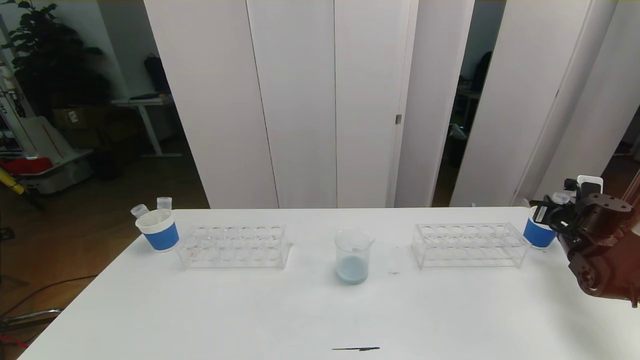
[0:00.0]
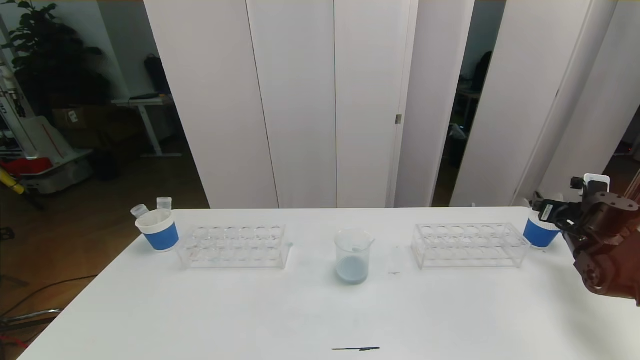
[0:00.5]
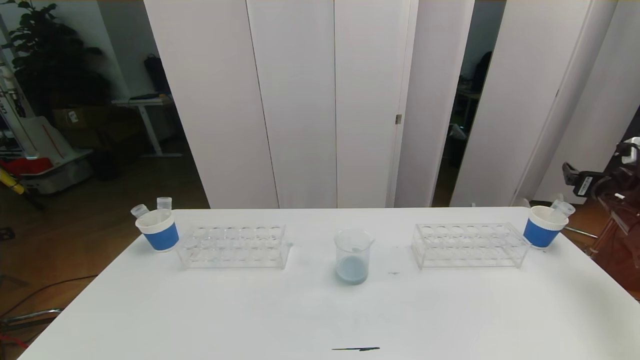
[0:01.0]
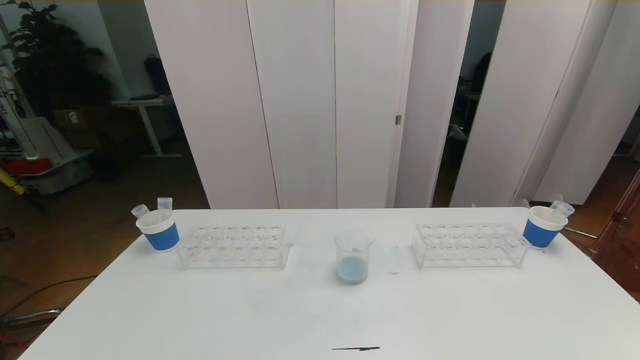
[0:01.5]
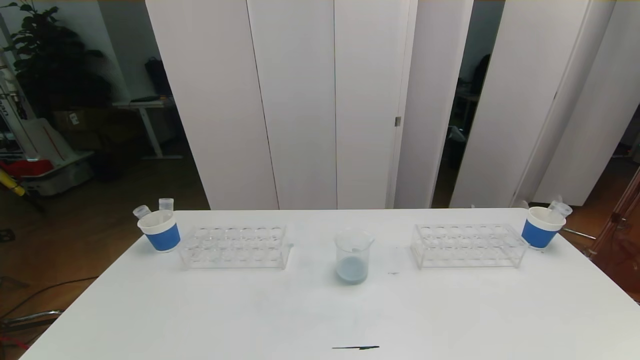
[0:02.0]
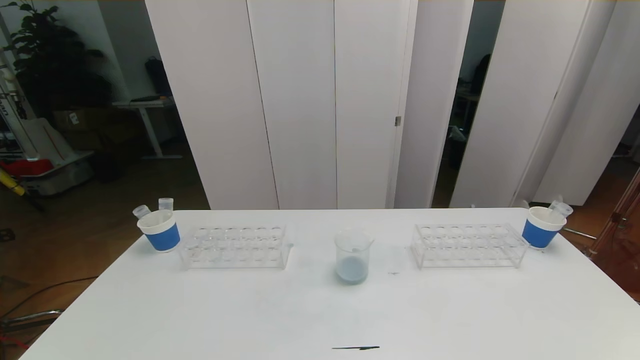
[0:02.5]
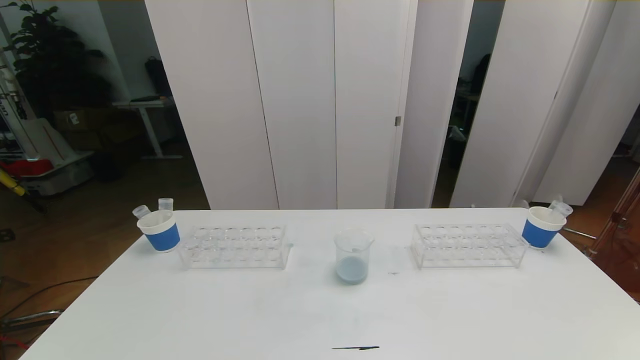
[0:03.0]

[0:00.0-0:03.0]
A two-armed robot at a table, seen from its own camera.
Task of the whole recording: pick up the test tube with red pigment the test tube with blue pigment and the test tube with white pigment by grippers and pour them into the beaker.
0:00.0 to 0:01.5: The right gripper heads upward and backward, covering roughly 35 cm, and opens its fingers.
